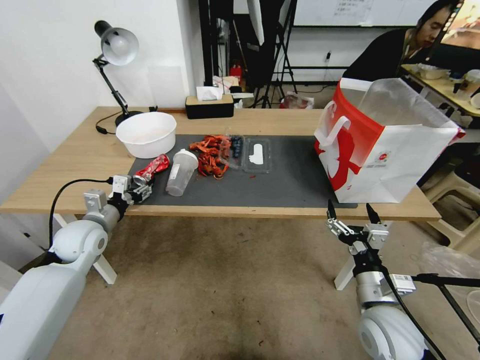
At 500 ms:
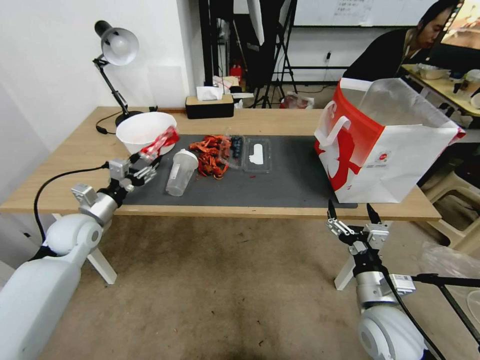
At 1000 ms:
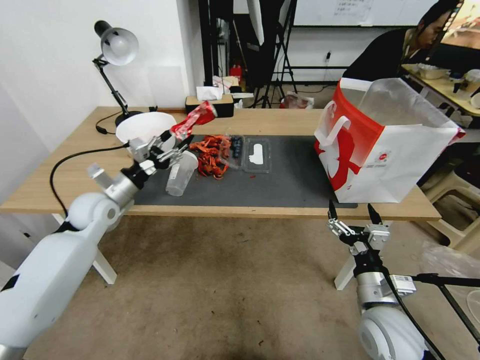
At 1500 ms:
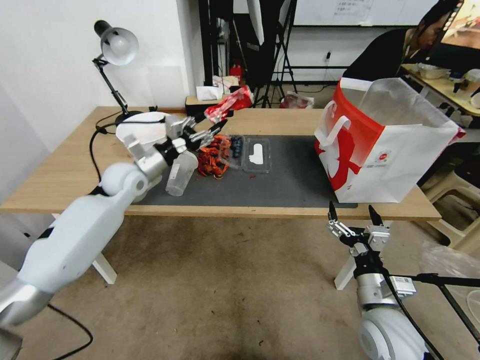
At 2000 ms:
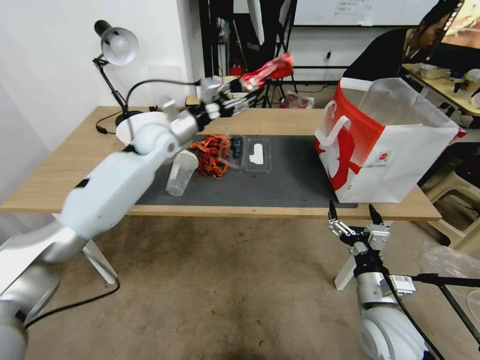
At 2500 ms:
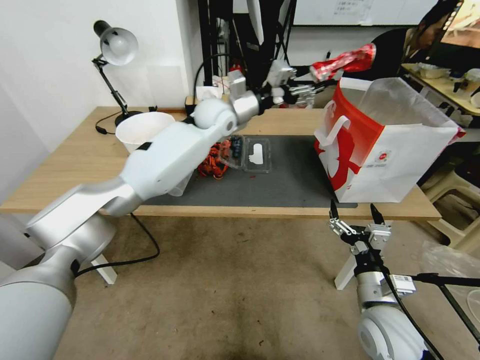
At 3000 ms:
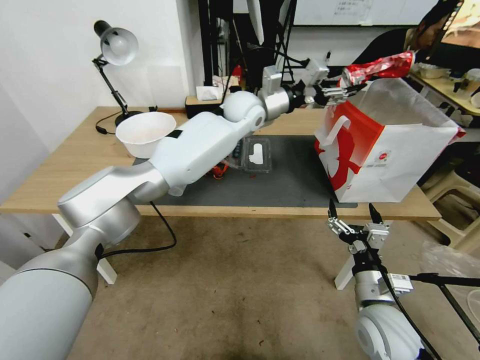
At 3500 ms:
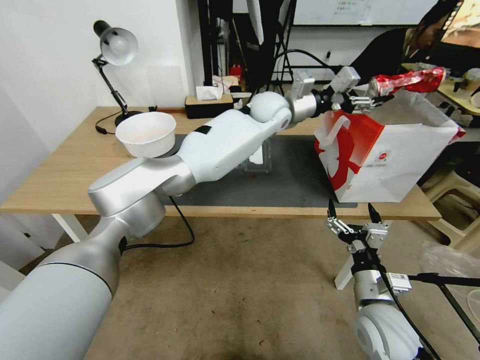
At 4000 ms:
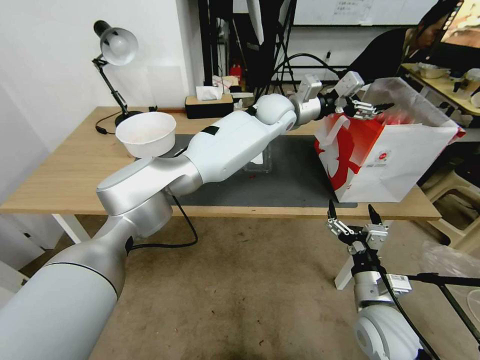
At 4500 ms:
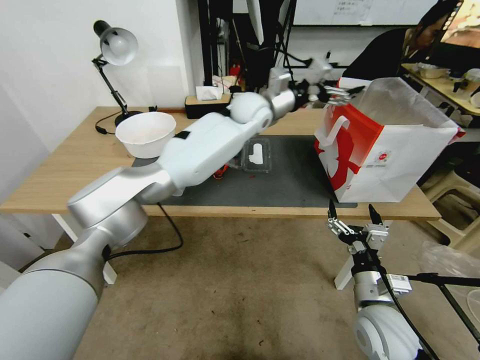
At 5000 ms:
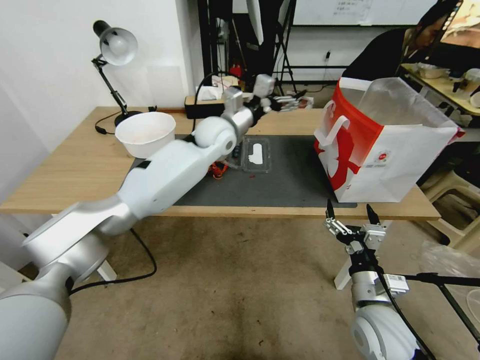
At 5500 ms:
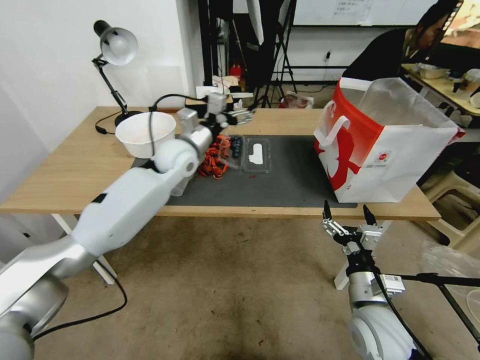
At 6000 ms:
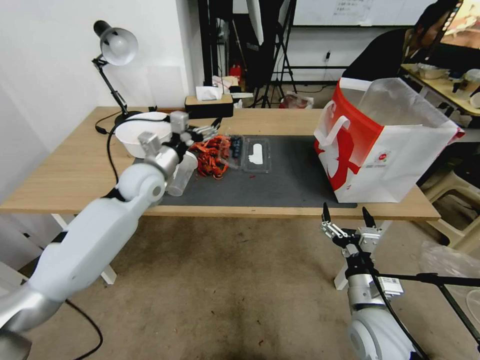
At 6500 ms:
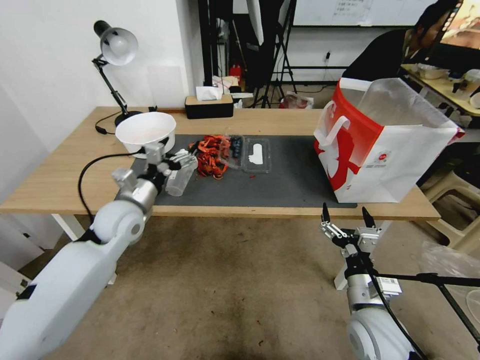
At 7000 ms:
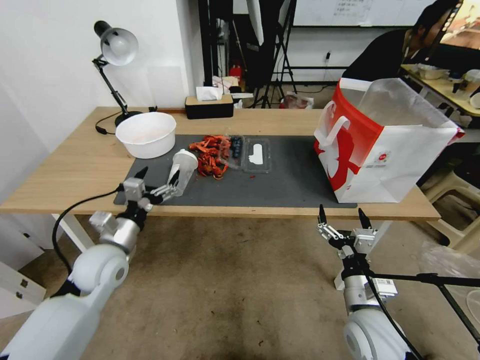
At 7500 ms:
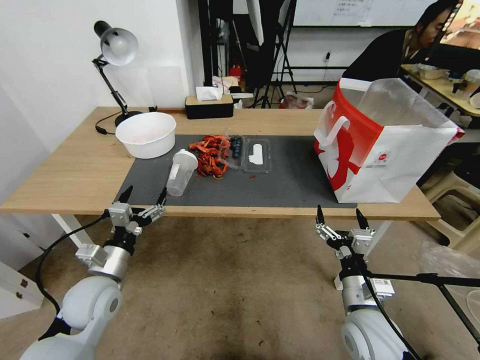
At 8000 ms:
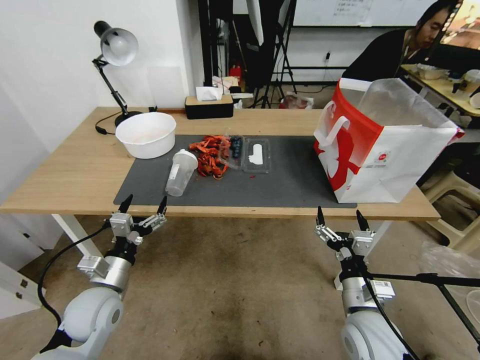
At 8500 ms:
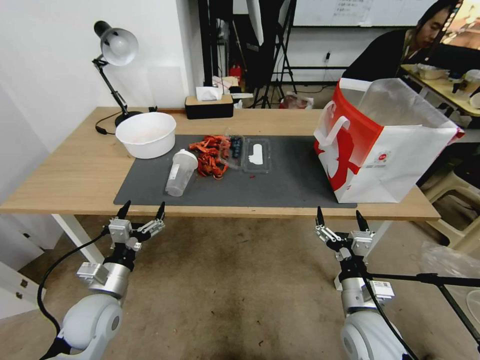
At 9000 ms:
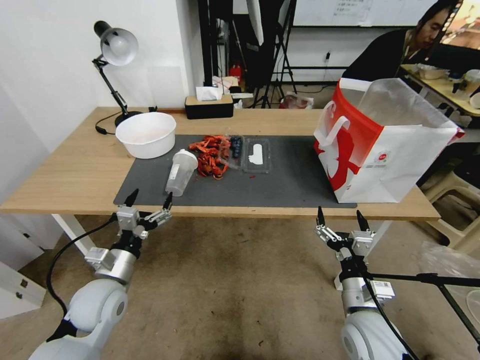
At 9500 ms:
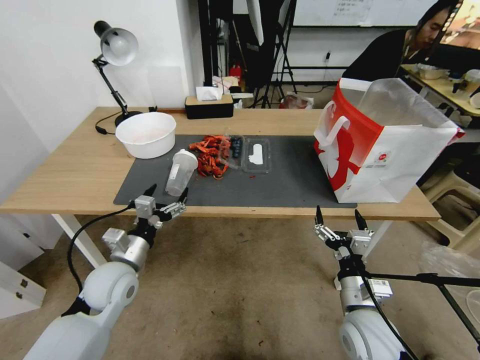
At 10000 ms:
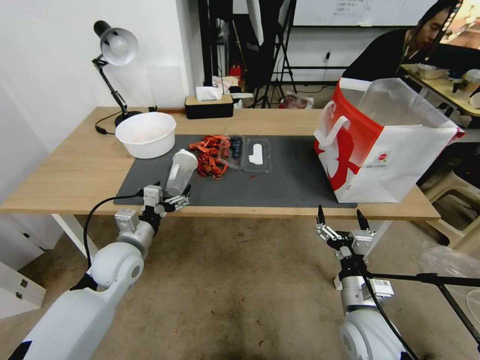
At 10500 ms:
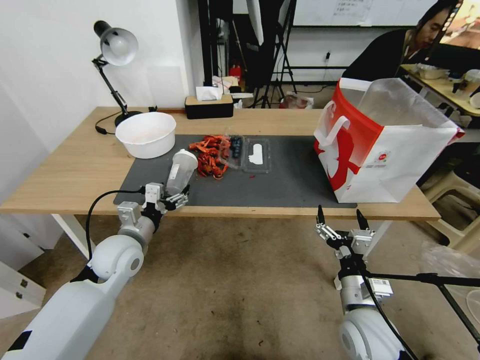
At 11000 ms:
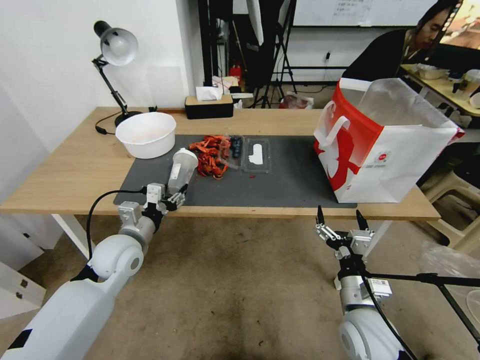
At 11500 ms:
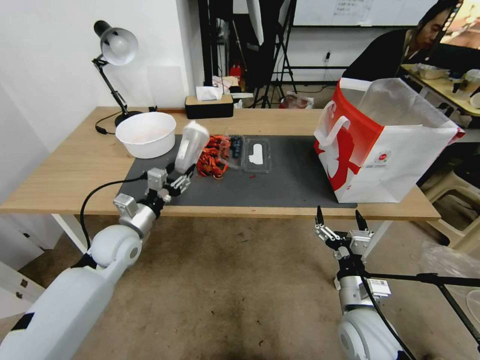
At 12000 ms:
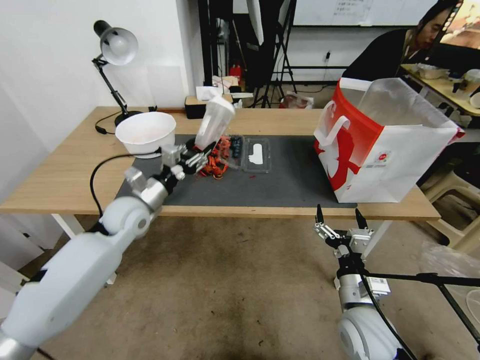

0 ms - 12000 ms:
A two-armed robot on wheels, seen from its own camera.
0 ms - 2000 ms: The left gripper shifts some 30 cm forward, to the right and upward.
2000 ms - 4000 ms: The left gripper is displaced to the right by approximately 30 cm, and opens up.
4000 ms - 6000 ms: The left gripper shifts approximately 35 cm to the left and backward.
6000 ms - 8000 ms: The left gripper goes about 25 cm backward and downward.
8000 ms - 10000 ms: The left gripper is displaced forward by roughly 10 cm.
10000 ms - 12000 ms: The left gripper moves forward and upward, some 10 cm, and closes up.

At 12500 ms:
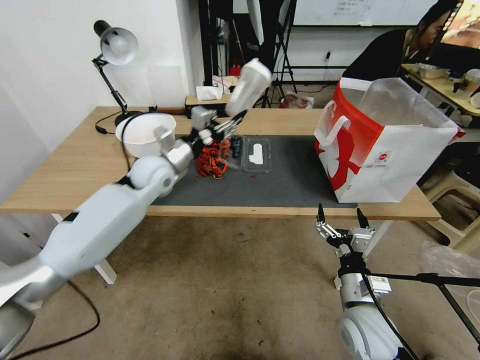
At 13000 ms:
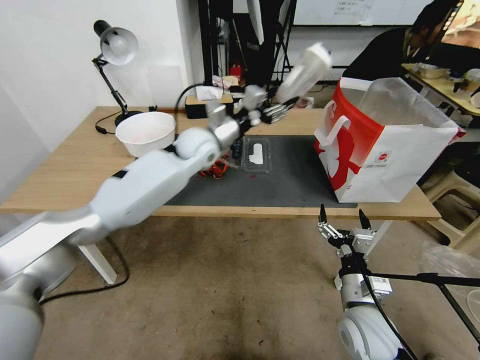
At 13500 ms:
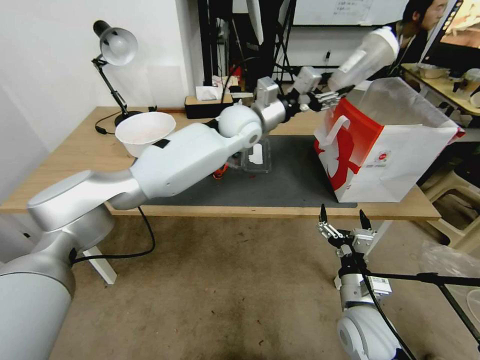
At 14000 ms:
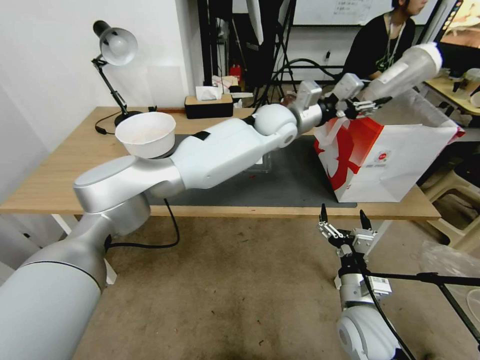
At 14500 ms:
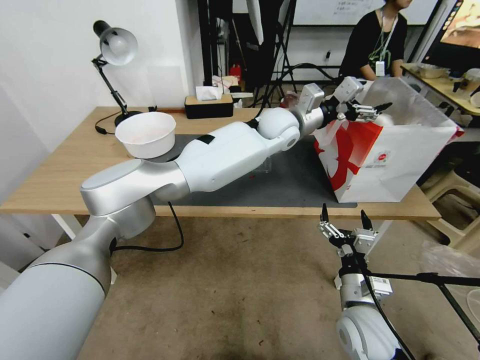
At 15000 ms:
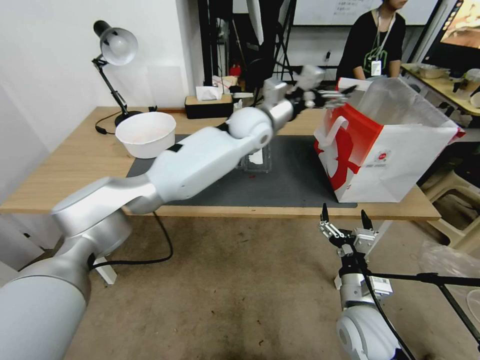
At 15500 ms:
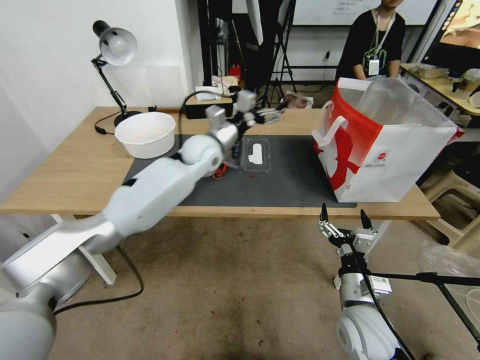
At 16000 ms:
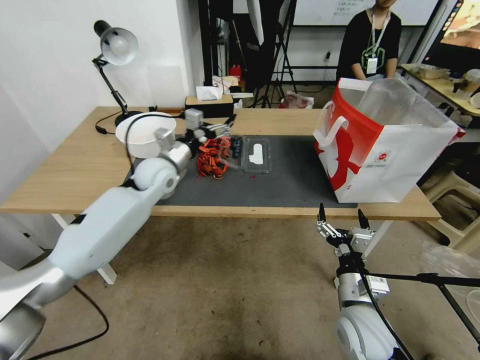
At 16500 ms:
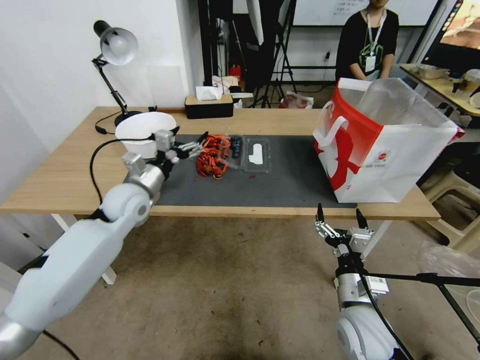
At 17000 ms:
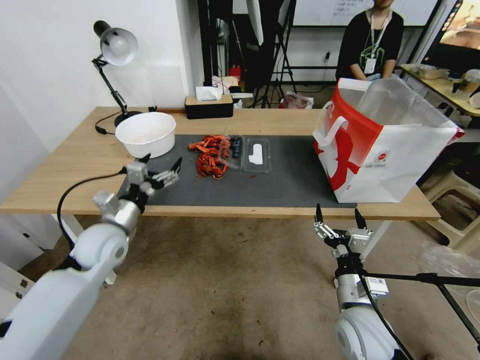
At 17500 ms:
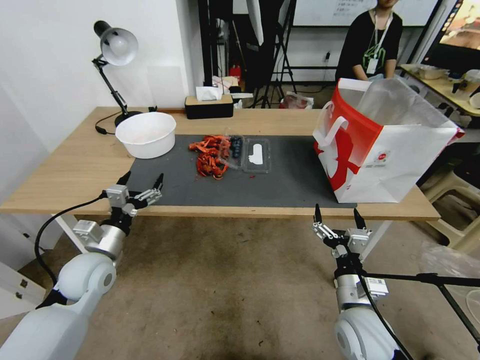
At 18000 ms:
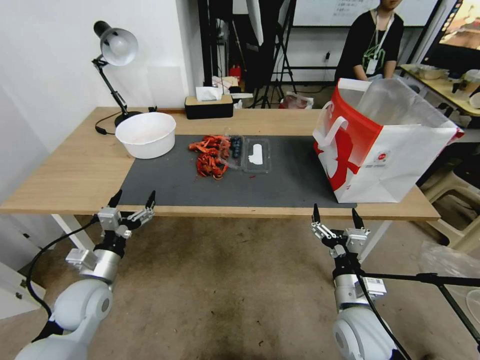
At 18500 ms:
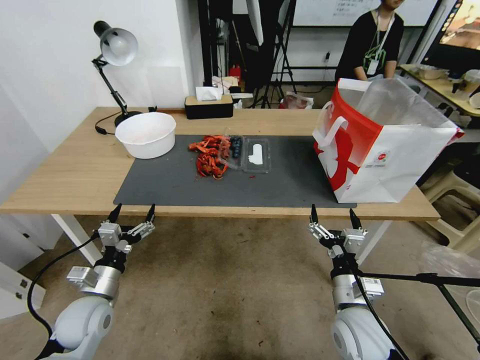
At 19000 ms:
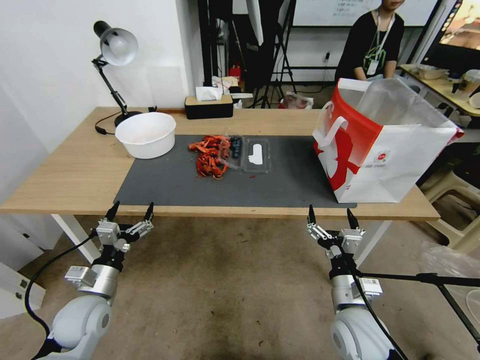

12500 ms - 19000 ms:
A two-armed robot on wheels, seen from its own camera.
12500 ms - 14500 ms: The left gripper travels to the right by about 30 cm, and opens.
14500 ms - 17000 ms: The left gripper shifts roughly 50 cm to the left, backward and downward.
17000 ms - 19000 ms: The left gripper is displaced backward and downward by about 15 cm.
